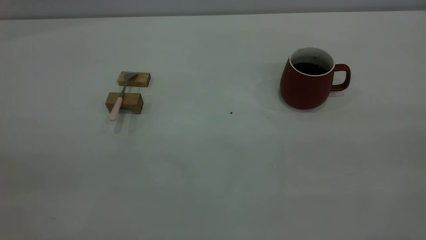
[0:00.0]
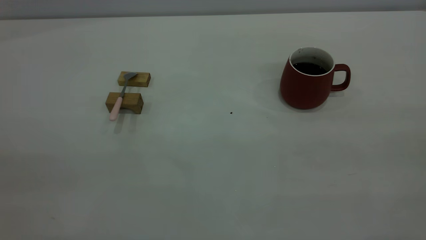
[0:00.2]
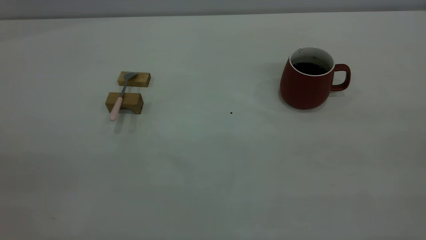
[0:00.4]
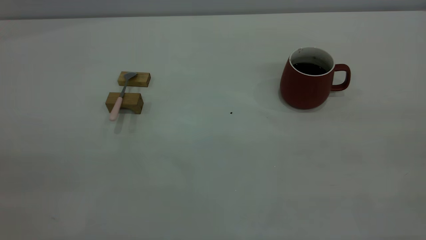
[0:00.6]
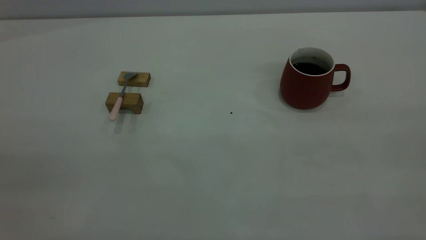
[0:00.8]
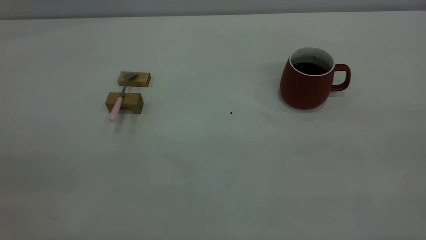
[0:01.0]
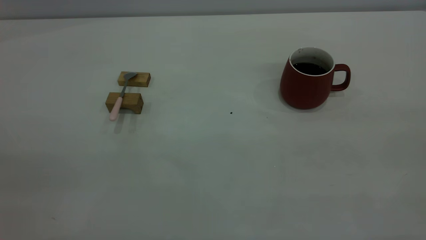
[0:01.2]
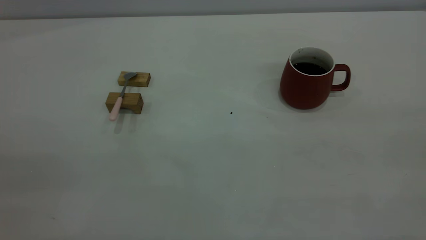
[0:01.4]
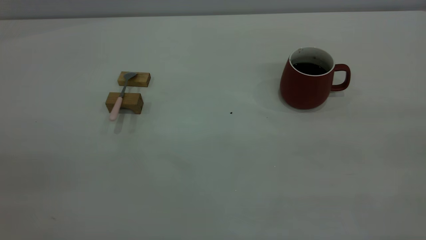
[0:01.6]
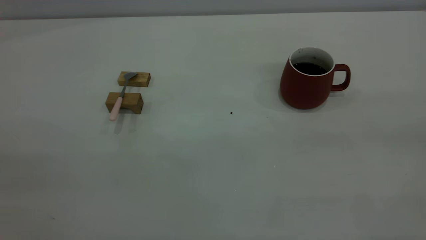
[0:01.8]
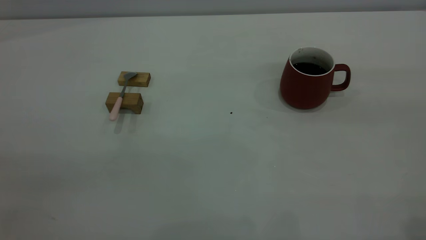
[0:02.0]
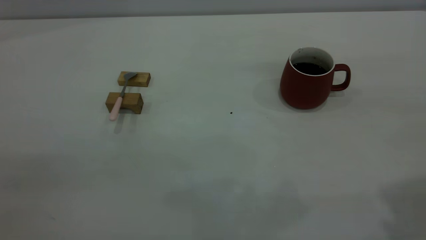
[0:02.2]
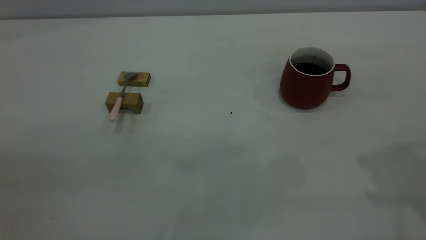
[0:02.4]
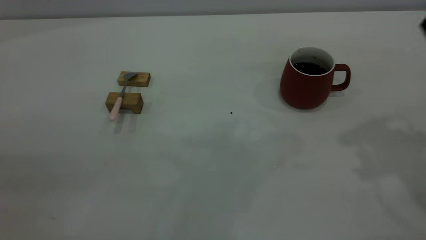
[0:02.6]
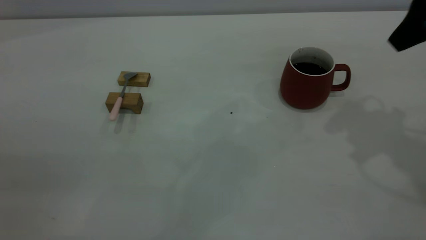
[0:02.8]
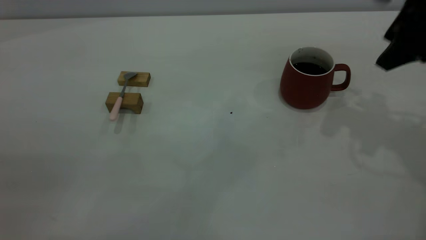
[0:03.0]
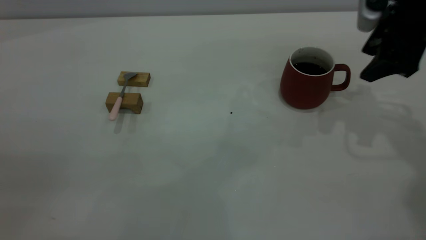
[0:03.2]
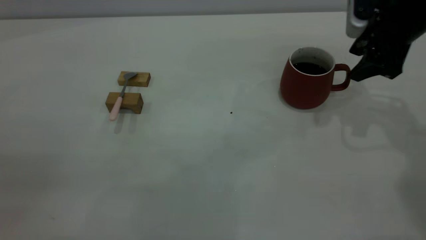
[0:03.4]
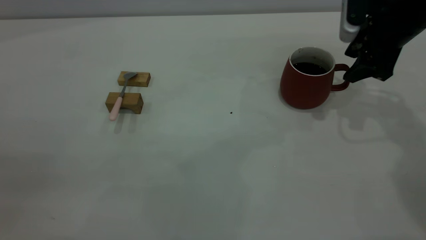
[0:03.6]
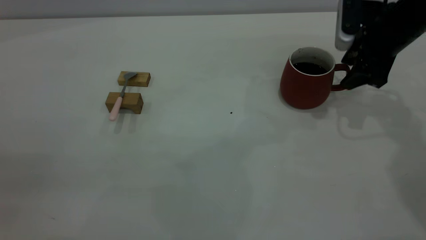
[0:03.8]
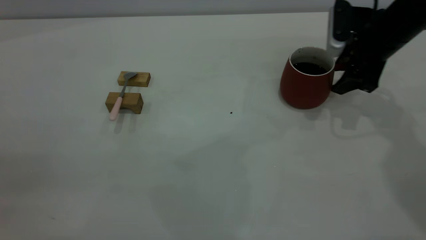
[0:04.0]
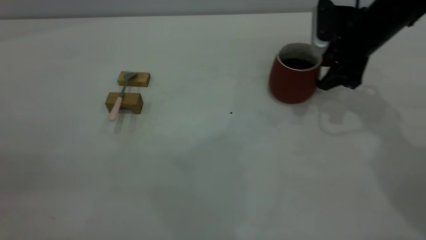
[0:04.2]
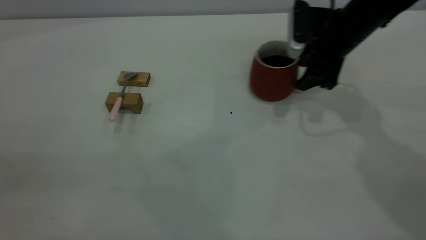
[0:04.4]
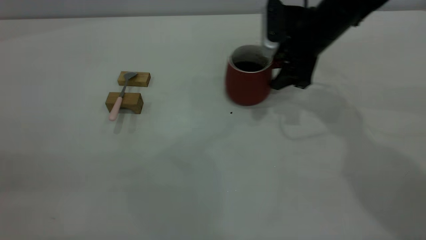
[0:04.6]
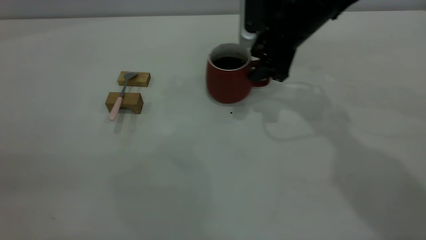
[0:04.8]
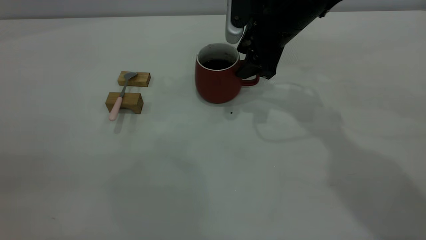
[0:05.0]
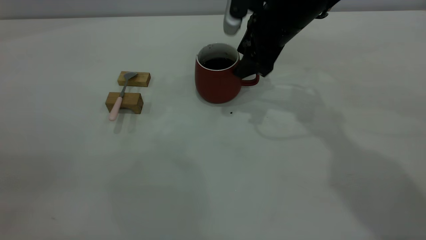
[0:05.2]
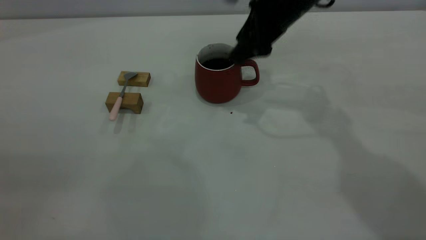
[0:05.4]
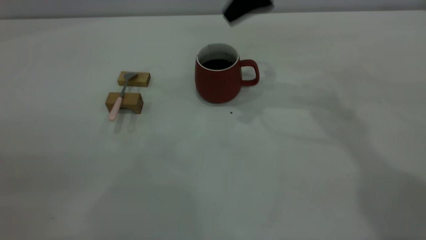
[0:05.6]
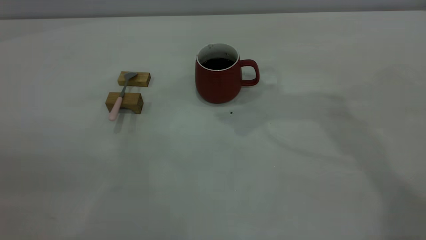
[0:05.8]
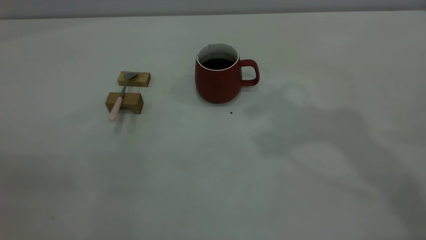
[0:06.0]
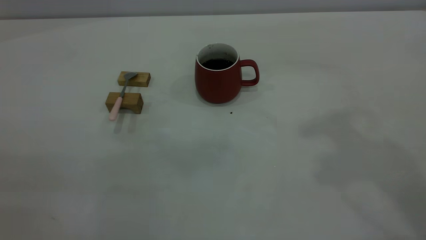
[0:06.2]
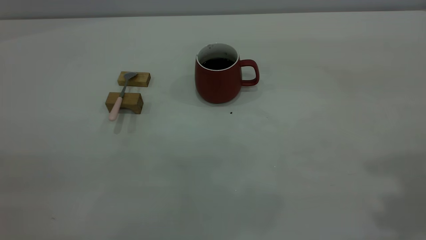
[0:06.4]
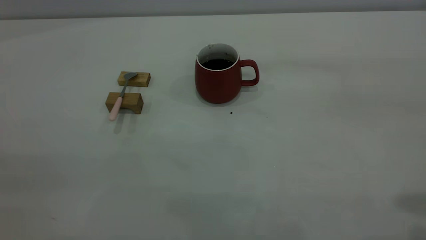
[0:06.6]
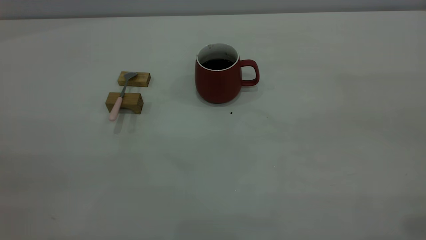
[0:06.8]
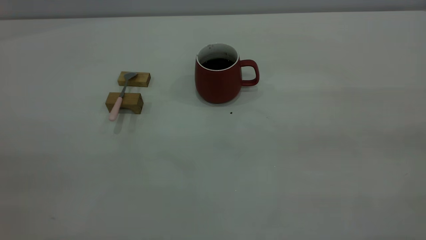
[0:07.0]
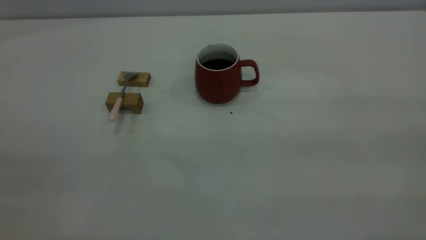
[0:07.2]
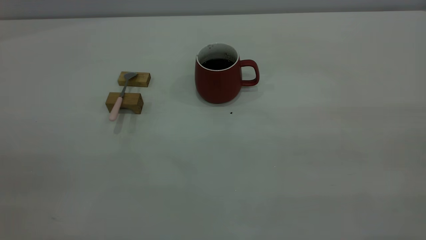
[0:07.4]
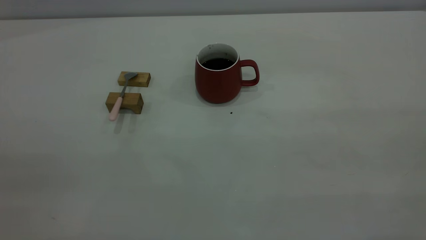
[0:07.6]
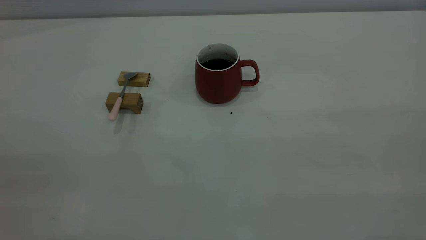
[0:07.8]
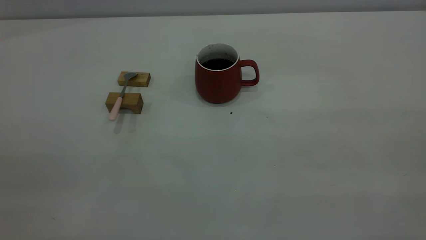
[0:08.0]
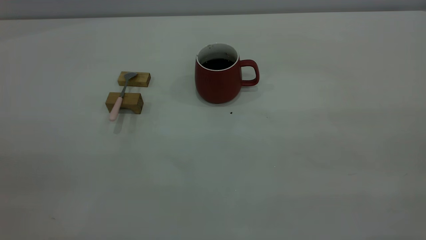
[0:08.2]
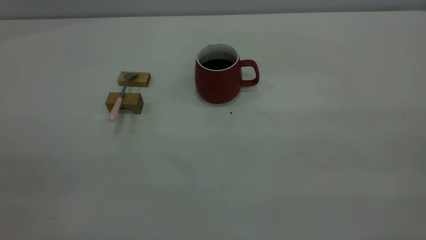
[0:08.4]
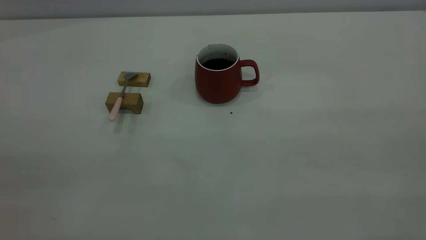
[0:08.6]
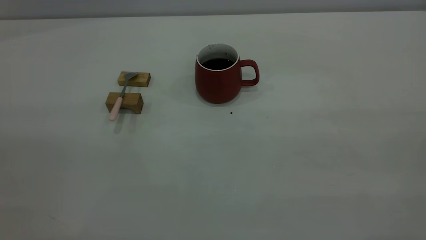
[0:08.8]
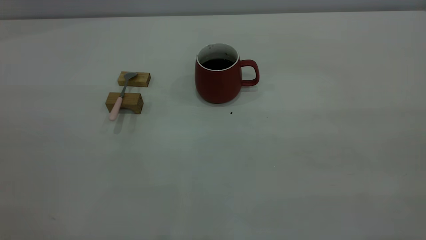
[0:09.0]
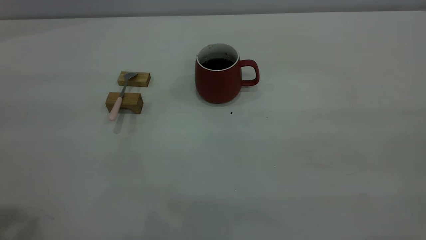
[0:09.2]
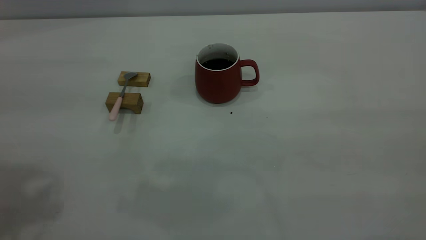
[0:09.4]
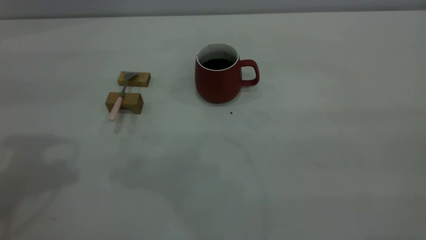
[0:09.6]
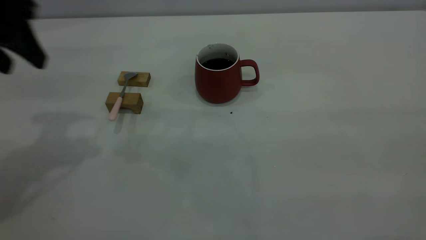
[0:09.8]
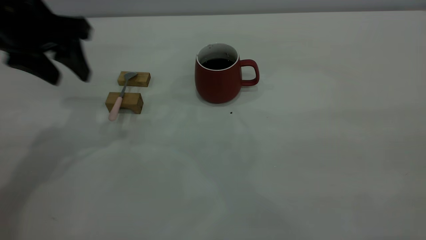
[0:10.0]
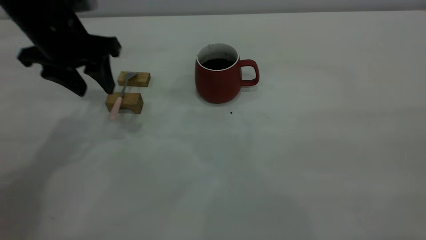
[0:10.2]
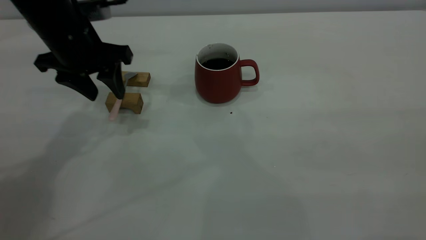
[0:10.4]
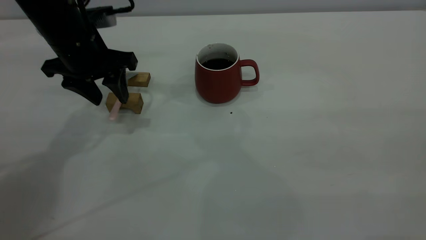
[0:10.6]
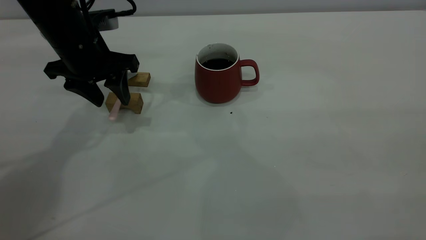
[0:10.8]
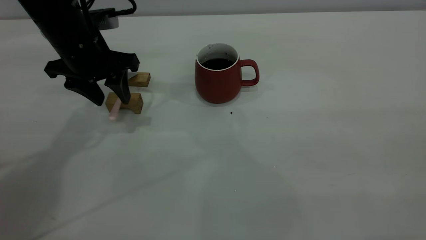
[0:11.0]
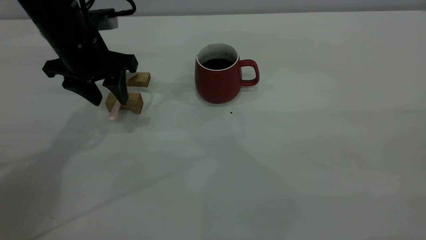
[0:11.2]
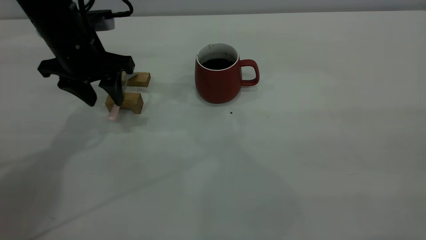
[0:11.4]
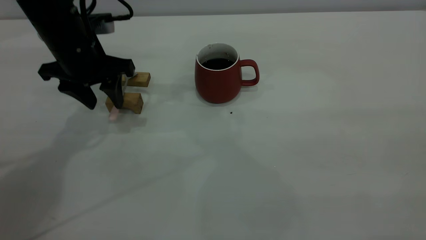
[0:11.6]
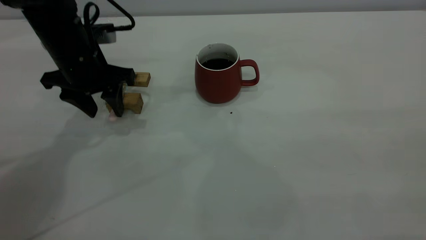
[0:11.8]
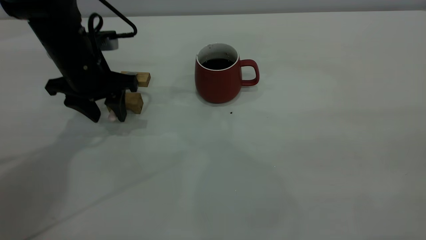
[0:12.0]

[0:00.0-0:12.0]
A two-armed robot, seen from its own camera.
Step, 0:00.0 to 0:05.4: Move the cup with coffee to the center of view.
0:00.0 to 0:01.6: Neither gripper changes place.
0:01.6 to 0:03.0: The right gripper is displaced forward and downward by approximately 35 cm.
0:03.0 to 0:04.4: The right gripper moves downward, forward and to the left, approximately 15 cm.
0:04.4 to 0:06.0: The right gripper is displaced upward by approximately 25 cm.
0:09.0 to 0:10.4: The left gripper is displaced forward and downward by approximately 35 cm.
0:10.4 to 0:12.0: The left gripper travels downward by approximately 5 cm.

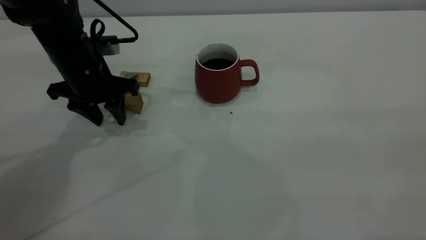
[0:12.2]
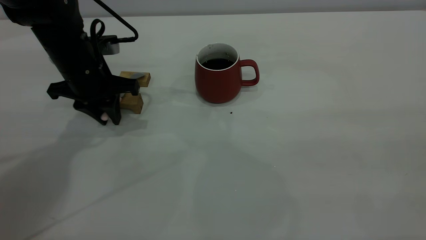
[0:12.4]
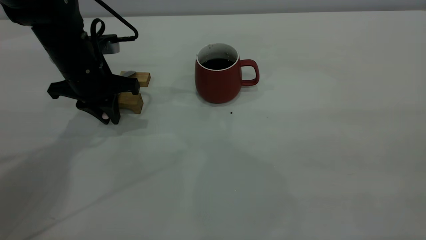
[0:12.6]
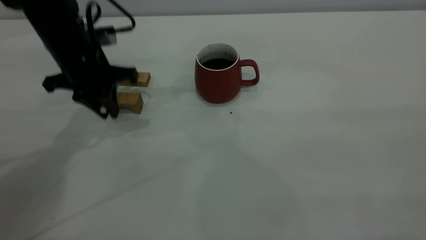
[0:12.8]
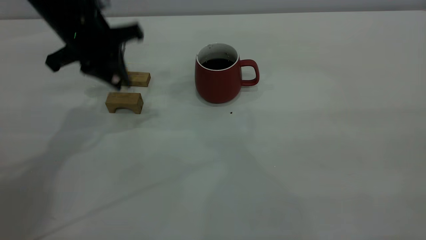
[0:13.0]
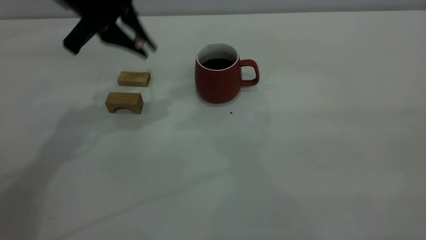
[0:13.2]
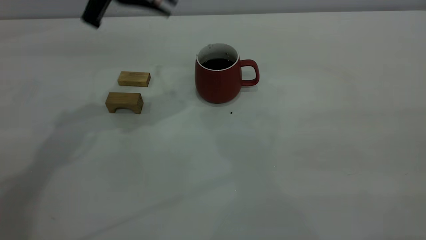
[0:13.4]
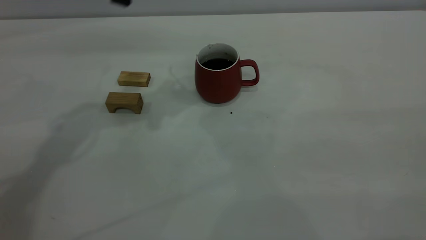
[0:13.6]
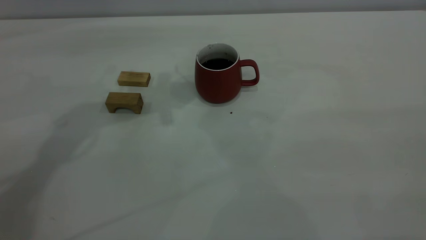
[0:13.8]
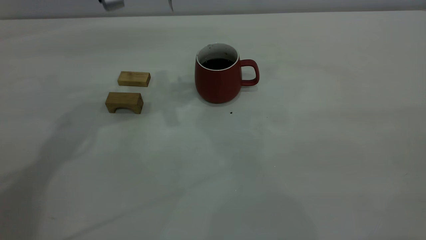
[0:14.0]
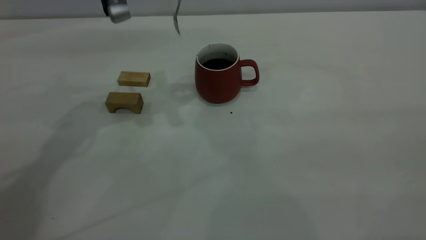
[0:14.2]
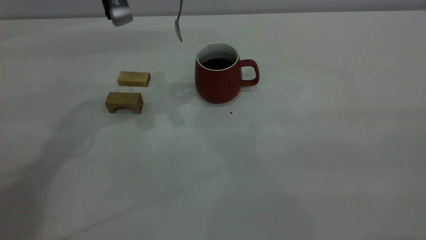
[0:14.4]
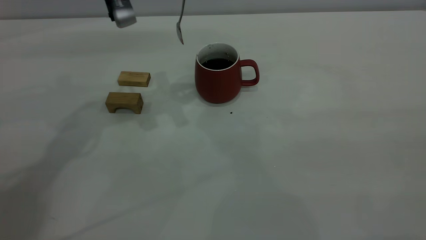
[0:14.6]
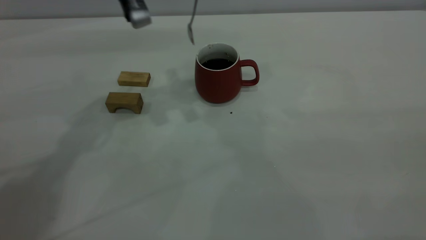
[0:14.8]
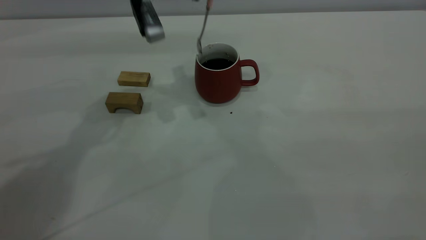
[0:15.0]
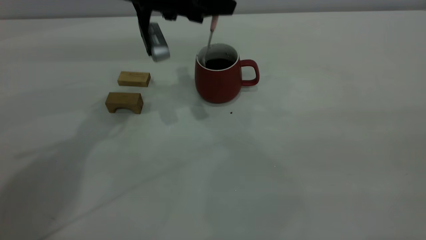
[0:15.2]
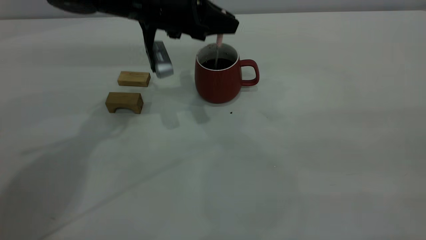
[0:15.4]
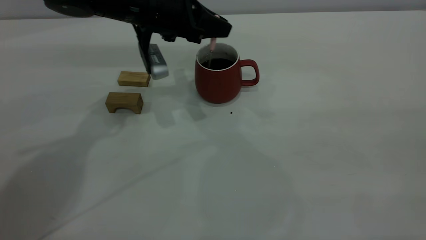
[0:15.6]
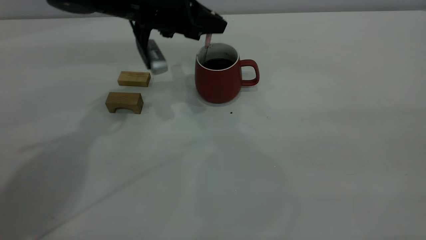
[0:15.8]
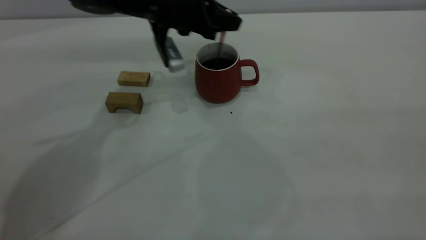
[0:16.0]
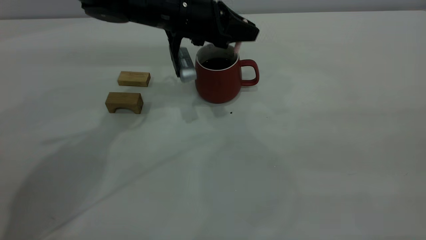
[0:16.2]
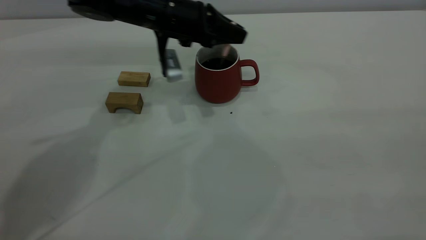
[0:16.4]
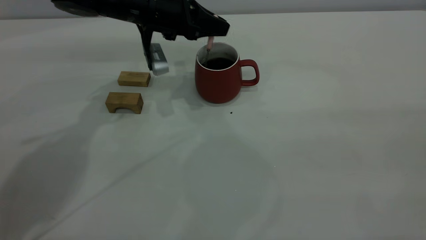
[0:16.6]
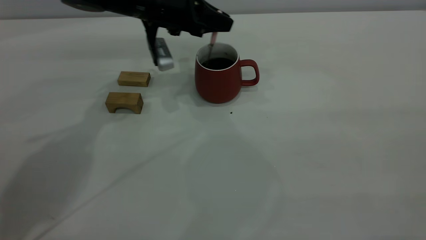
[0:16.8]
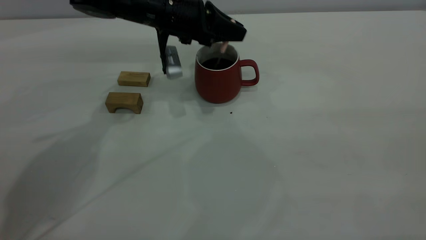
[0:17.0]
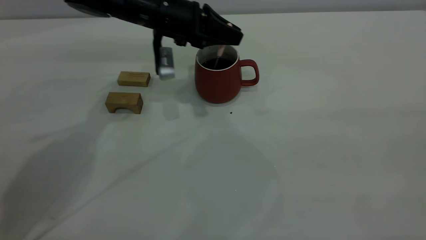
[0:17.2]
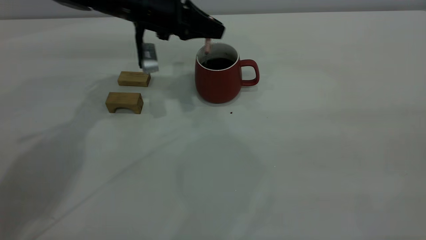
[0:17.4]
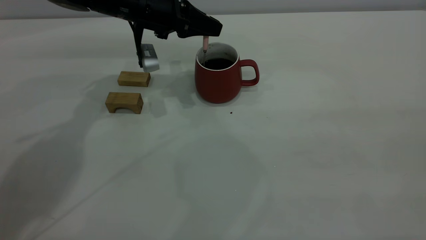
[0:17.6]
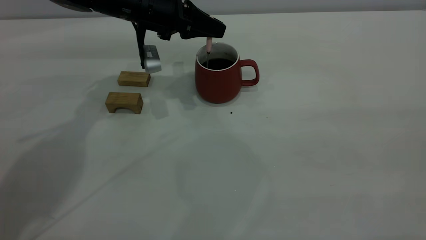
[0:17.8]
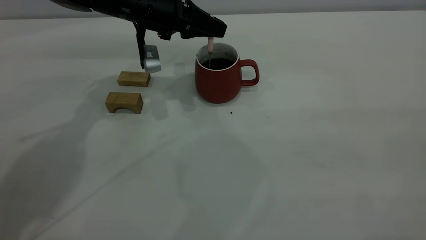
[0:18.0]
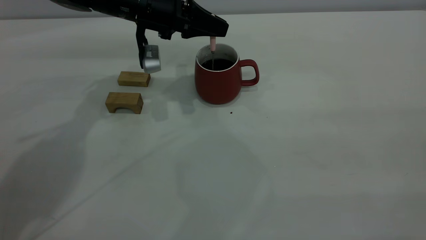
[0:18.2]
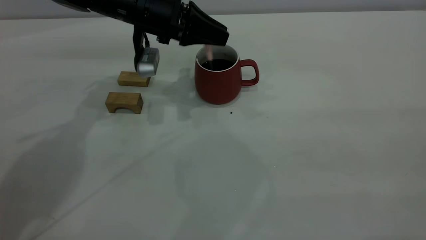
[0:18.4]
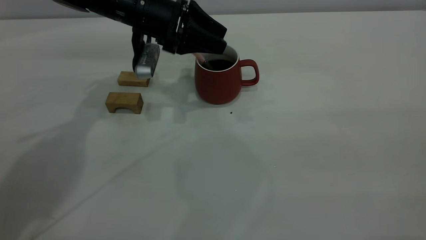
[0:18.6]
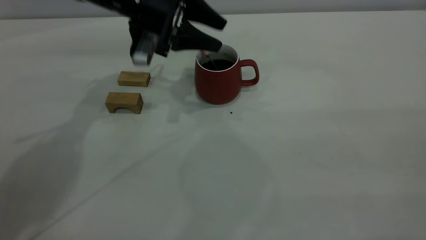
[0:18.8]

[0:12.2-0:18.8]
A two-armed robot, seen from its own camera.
0:12.2 to 0:13.8: The left gripper shifts roughly 15 cm upward, and closes.
0:13.8 to 0:15.4: The left gripper travels downward by roughly 10 cm.
0:15.4 to 0:17.2: The grippers move only a little.
0:17.2 to 0:18.8: The left gripper opens its fingers.
